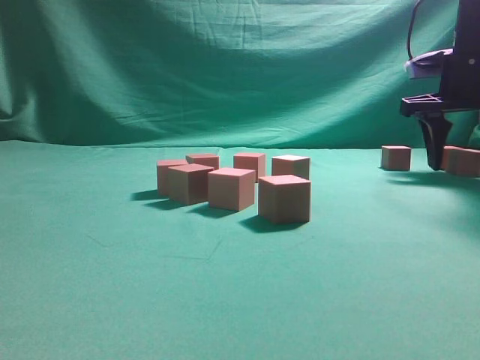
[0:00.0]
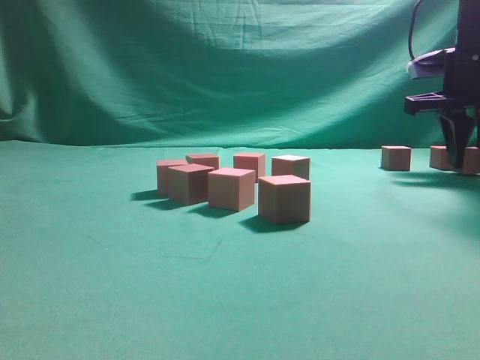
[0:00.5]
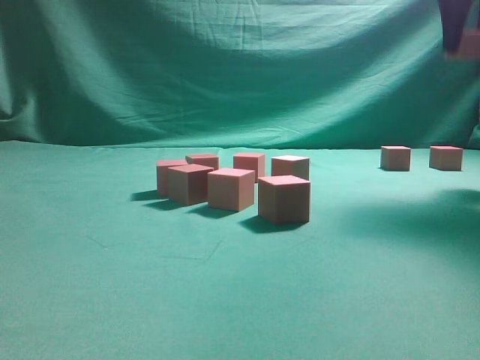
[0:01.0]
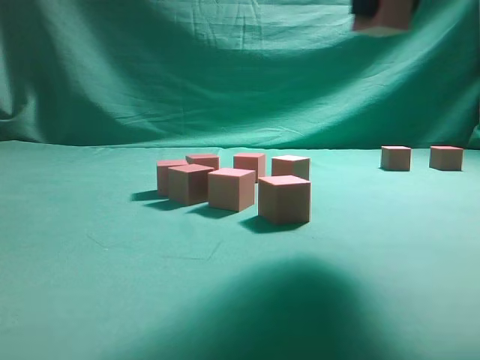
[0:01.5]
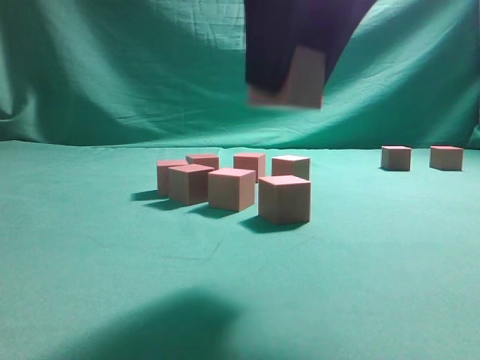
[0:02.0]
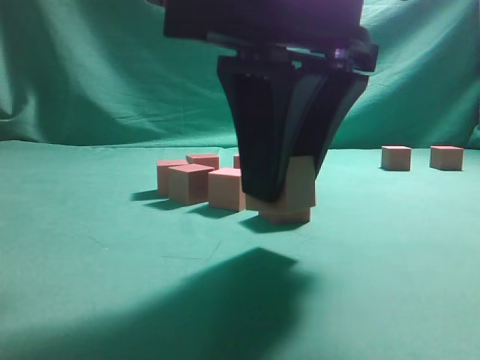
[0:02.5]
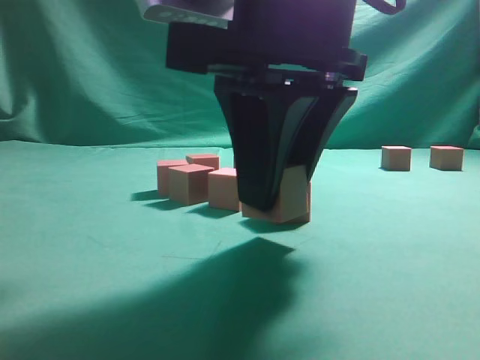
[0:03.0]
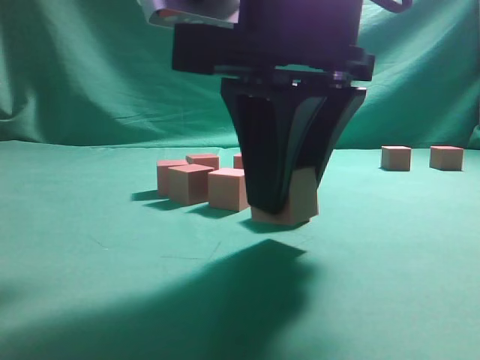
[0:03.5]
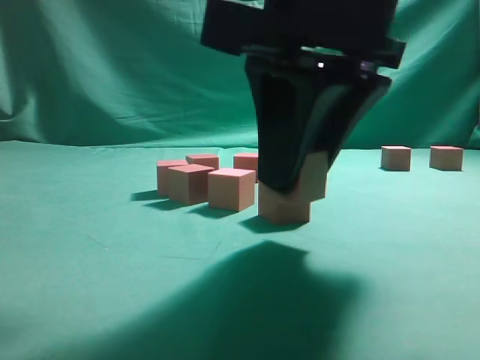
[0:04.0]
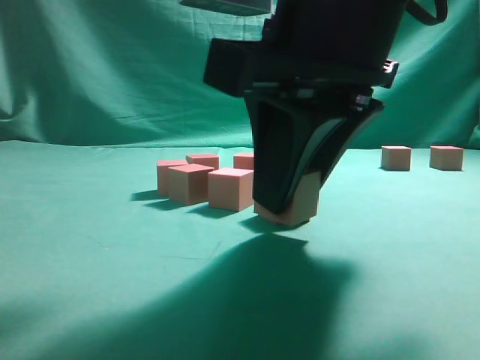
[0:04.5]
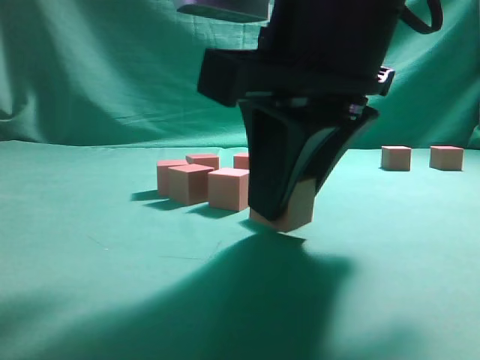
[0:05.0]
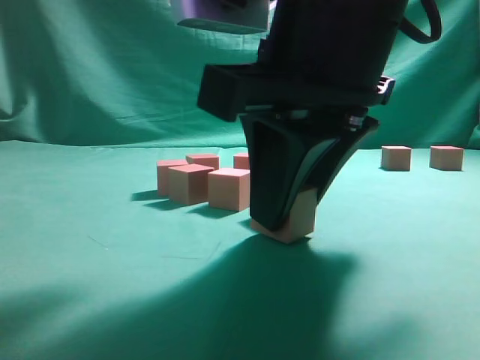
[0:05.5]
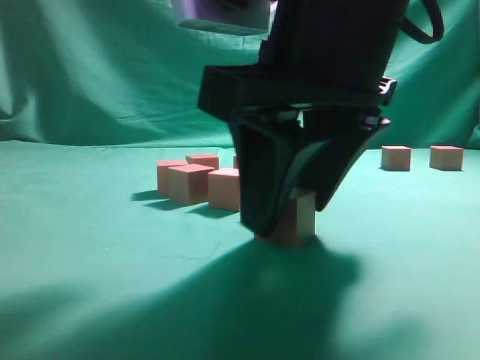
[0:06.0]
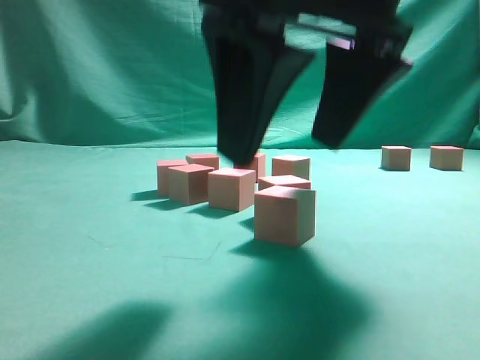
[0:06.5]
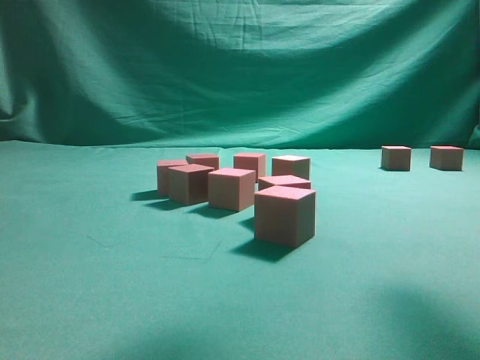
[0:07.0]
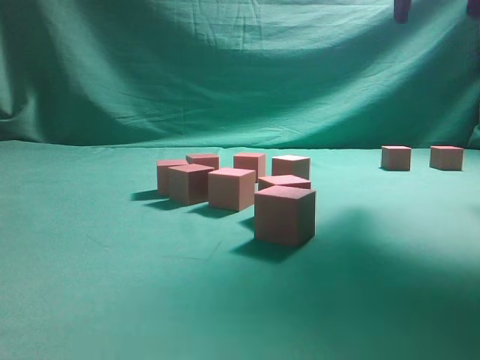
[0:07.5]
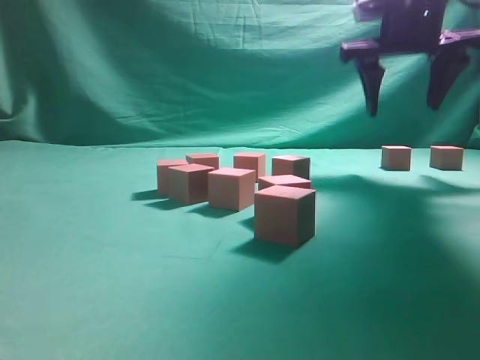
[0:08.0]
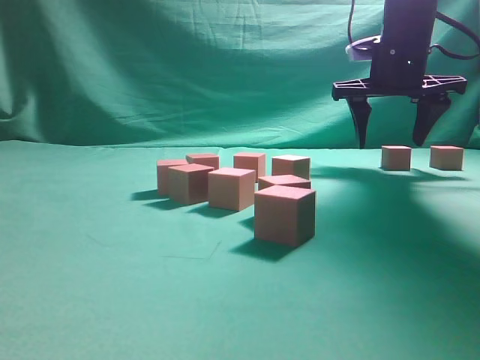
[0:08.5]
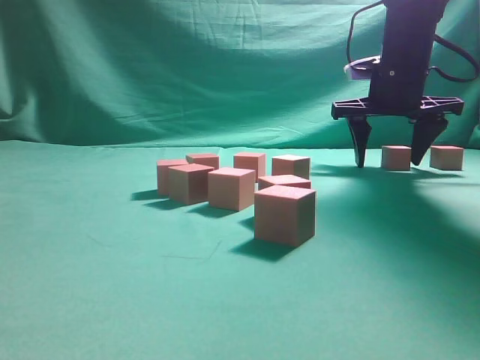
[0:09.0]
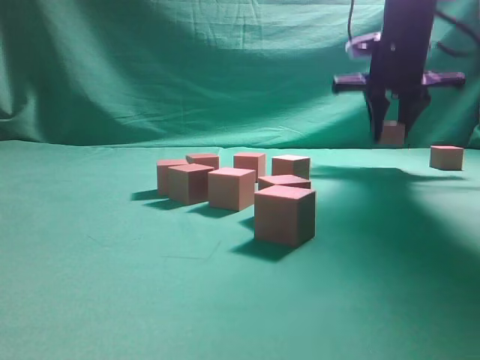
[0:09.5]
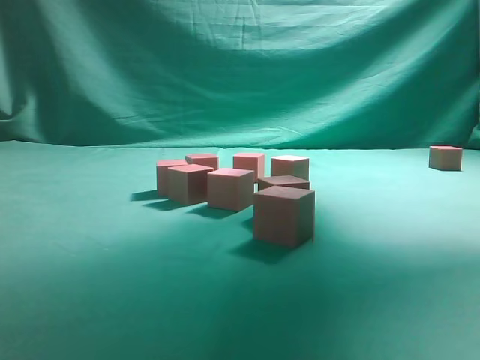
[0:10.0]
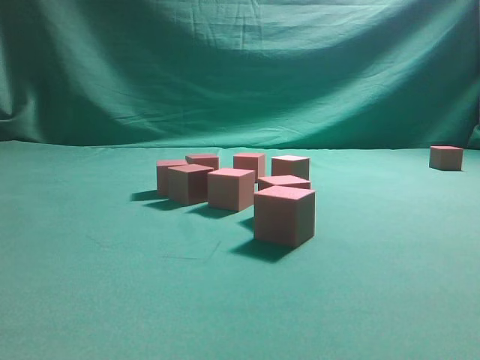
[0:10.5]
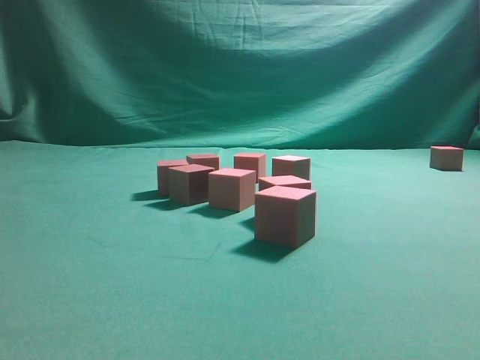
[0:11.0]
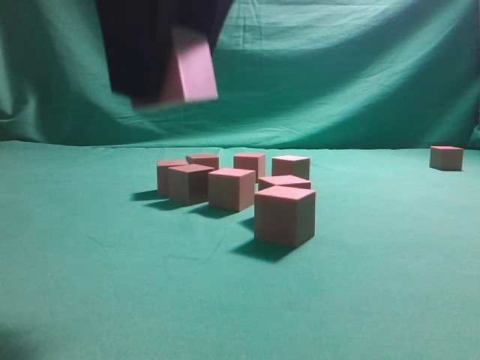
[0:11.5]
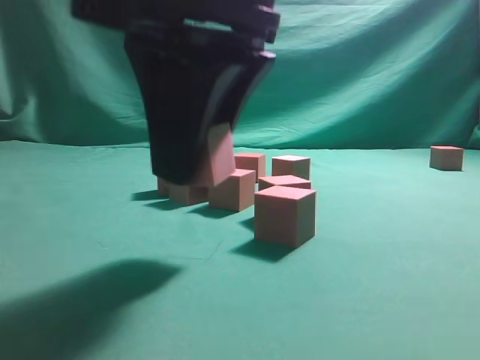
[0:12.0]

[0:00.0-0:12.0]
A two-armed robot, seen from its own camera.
Task of the whole recording: pick up the multiple cubes in two columns one by one and place them in another position on the table.
Step, 0:01.0 to 0:06.5: Place the block at the correct position to assemble the letter S.
Step, 0:07.0 to 0:09.5: Pick up the block on the table.
0:00.0 to 0:02.0: The right gripper heads backward and to the left, covering roughly 35 cm, and closes.
0:02.0 to 0:04.0: The right gripper heads downward, covering some 5 cm.
0:04.0 to 0:06.0: The grippers move only a little.
0:06.0 to 0:08.0: The right gripper heads forward and to the right, covering some 30 cm.
0:08.0 to 0:10.0: The right gripper goes approximately 15 cm upward, and closes up.
0:10.0 to 0:12.0: The right gripper travels backward, downward and to the left by approximately 35 cm.

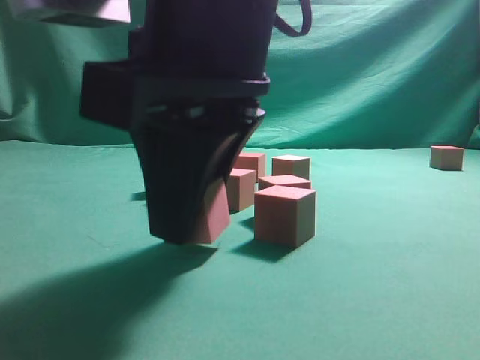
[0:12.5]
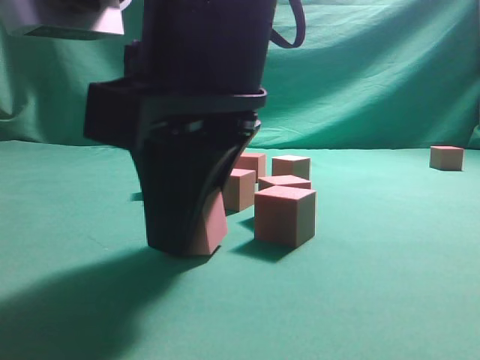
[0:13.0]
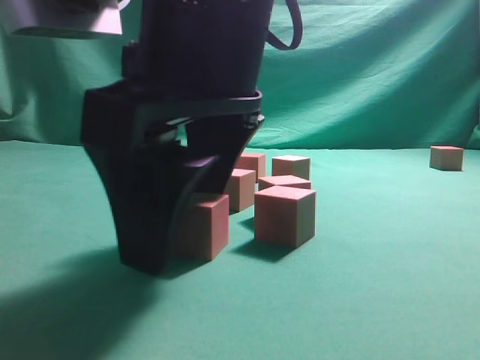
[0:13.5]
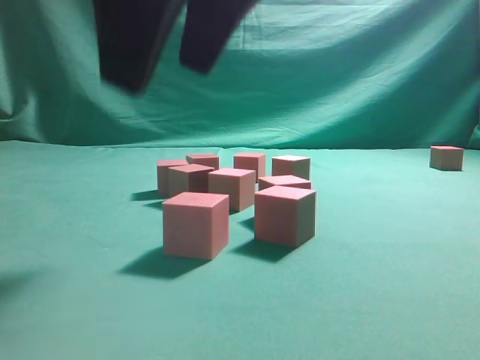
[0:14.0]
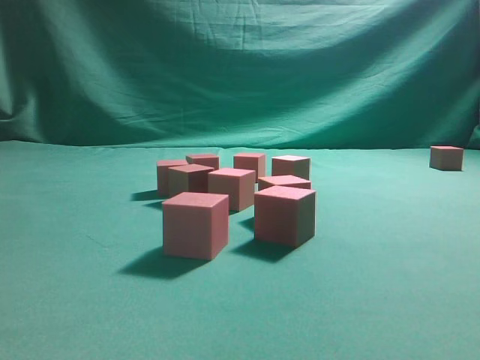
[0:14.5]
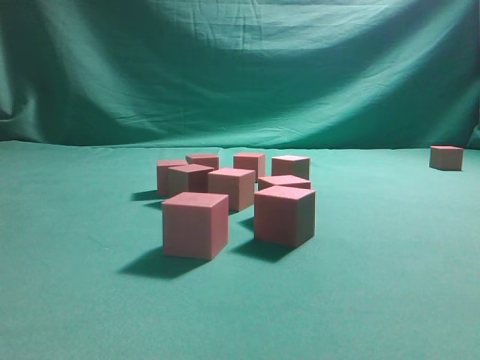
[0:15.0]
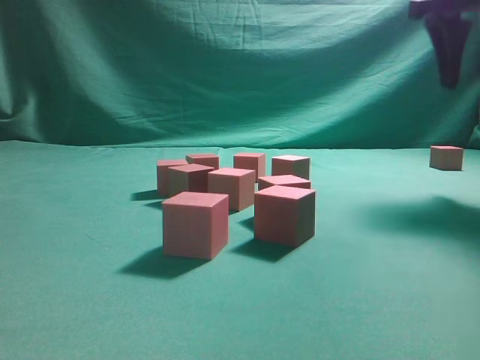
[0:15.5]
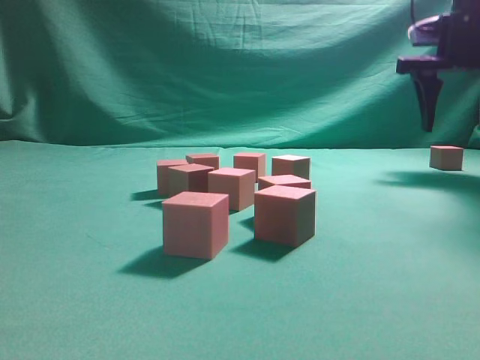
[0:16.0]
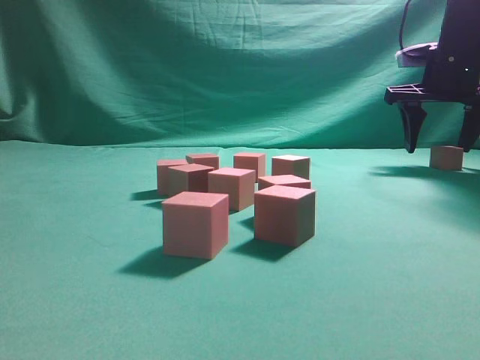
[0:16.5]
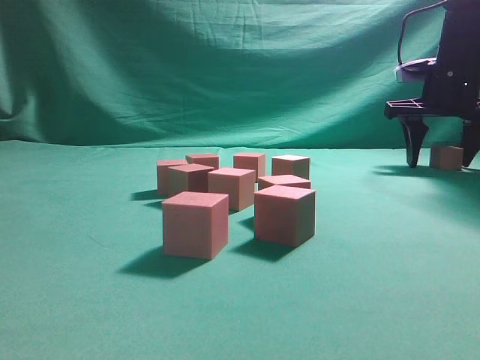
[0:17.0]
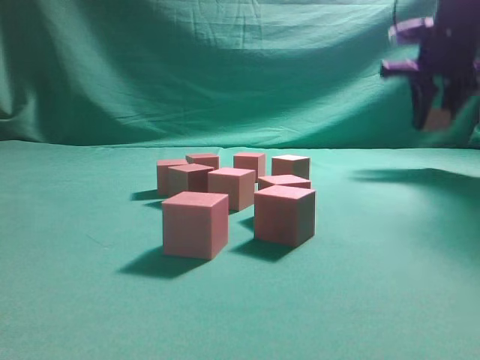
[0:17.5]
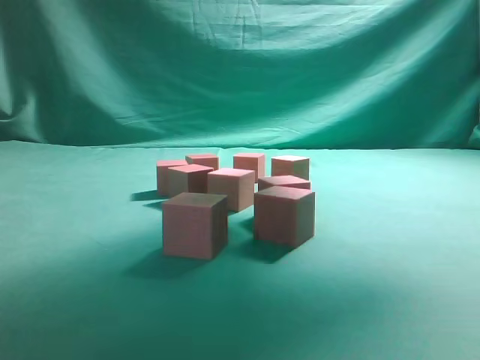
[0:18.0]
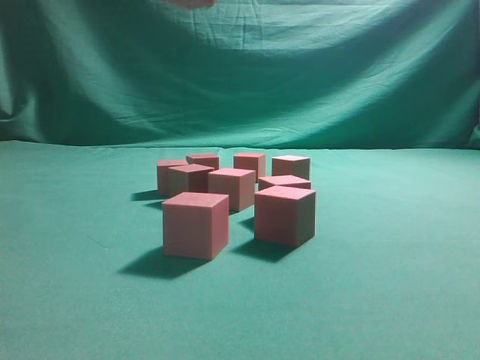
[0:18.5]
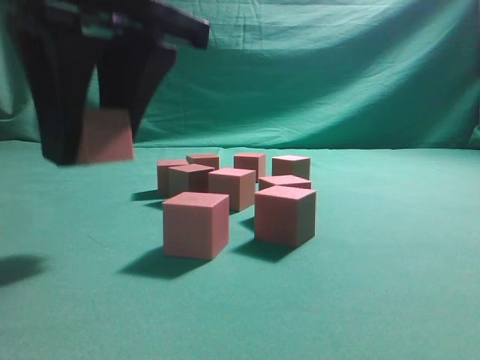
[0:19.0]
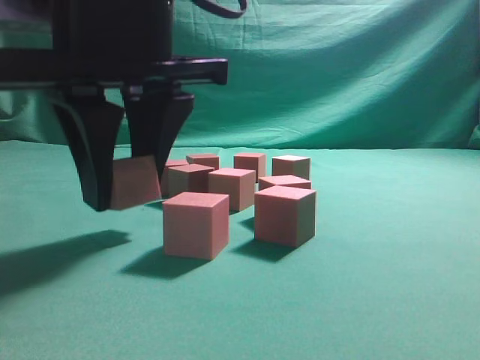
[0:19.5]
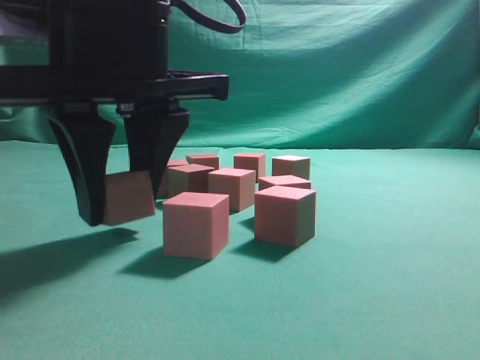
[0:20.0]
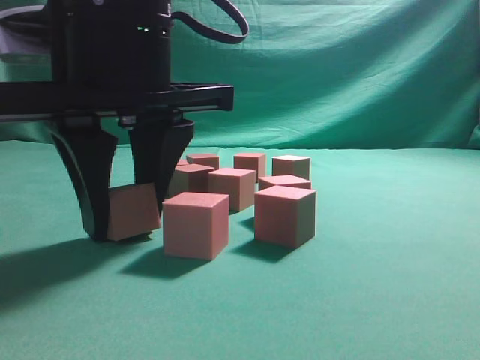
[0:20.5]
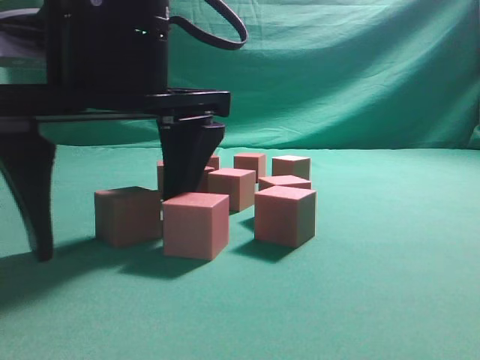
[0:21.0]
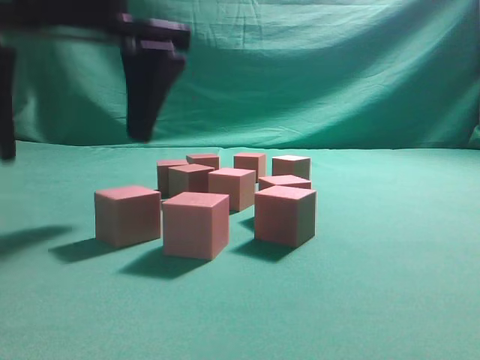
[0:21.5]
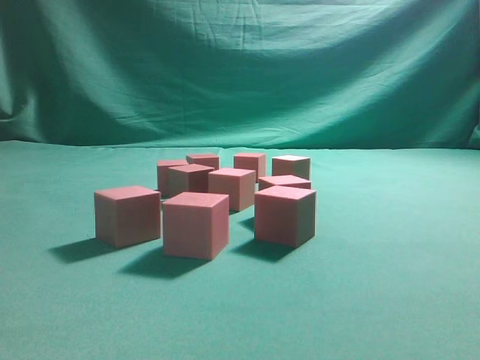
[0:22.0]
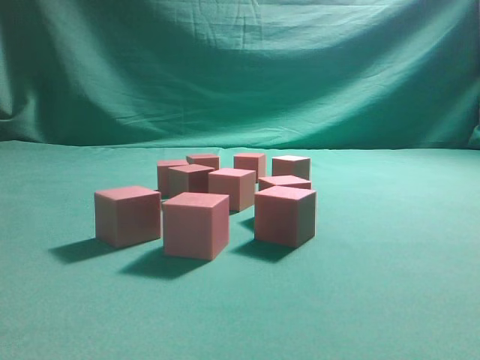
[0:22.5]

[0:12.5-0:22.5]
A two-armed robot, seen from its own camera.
Task of the whole recording: pick up the multiple cubes in two columns one by one and place them in another position on the table.
Step, 0:14.5 to 0:17.5: Pick up the block on the table.
Step, 0:18.0 to 0:21.5: Place the block at the correct position to assemble the letter S.
0:12.5 to 0:14.5: The right gripper travels upward and to the right by about 25 cm, and opens.
0:14.5 to 0:16.5: The right gripper heads forward, downward and to the right, covering roughly 40 cm.
0:16.5 to 0:18.5: The right gripper moves to the left, backward and upward, roughly 40 cm, and closes up.
0:18.5 to 0:20.5: The right gripper heads downward and to the left, covering some 15 cm.
0:20.5 to 0:22.5: The right gripper heads upward, covering approximately 40 cm, and opens and closes again.
